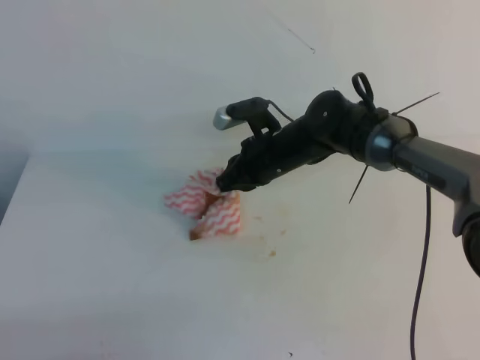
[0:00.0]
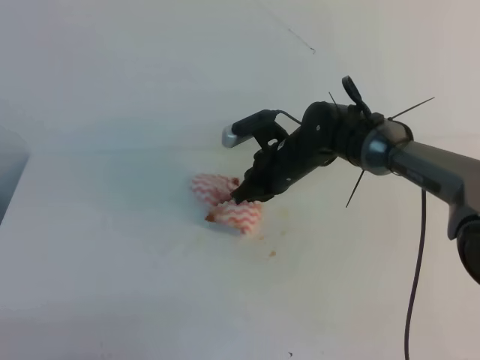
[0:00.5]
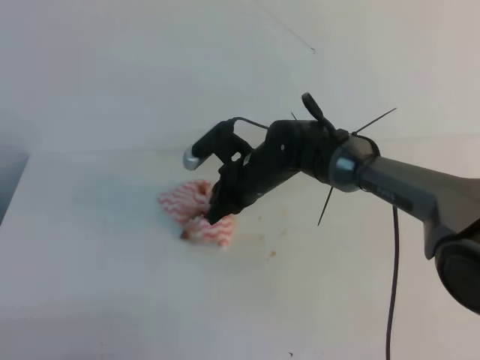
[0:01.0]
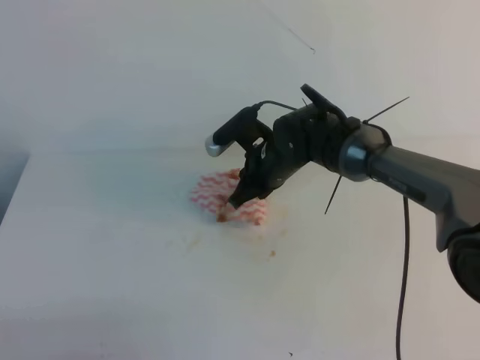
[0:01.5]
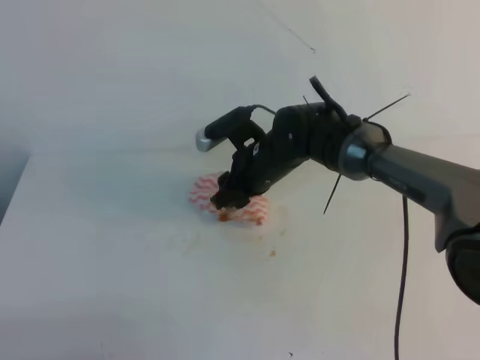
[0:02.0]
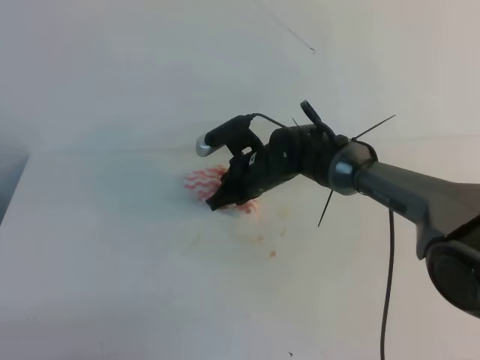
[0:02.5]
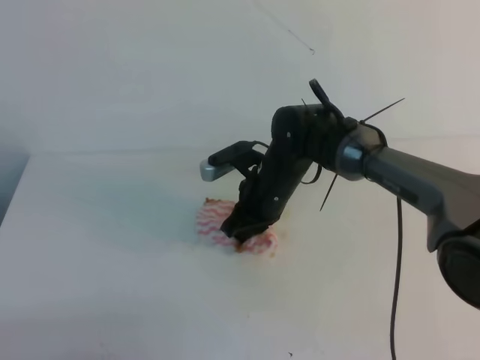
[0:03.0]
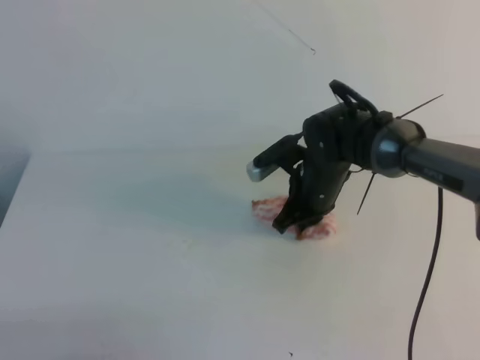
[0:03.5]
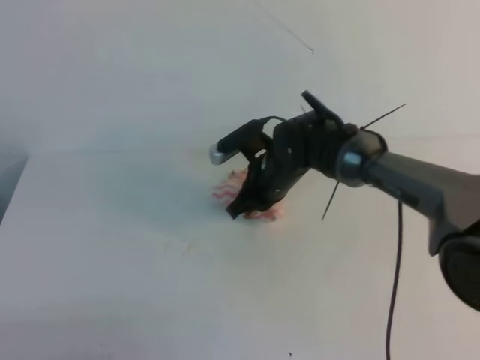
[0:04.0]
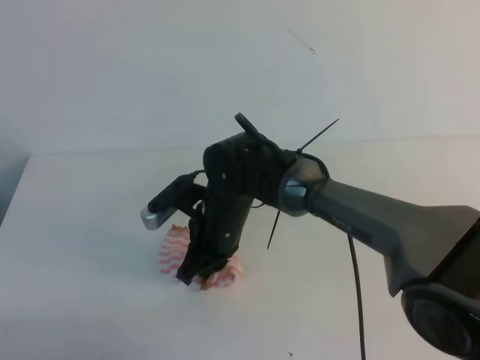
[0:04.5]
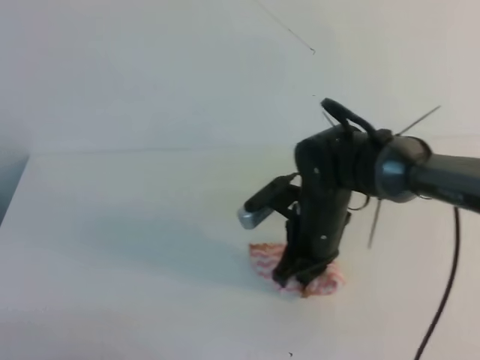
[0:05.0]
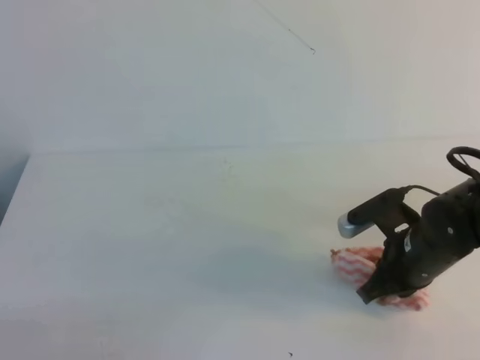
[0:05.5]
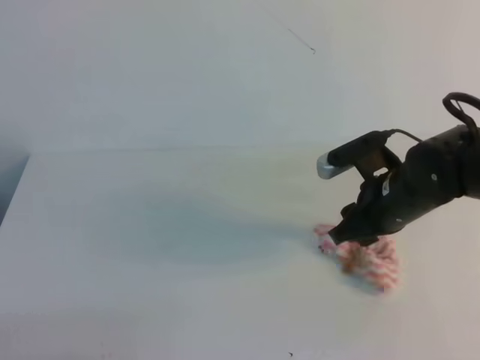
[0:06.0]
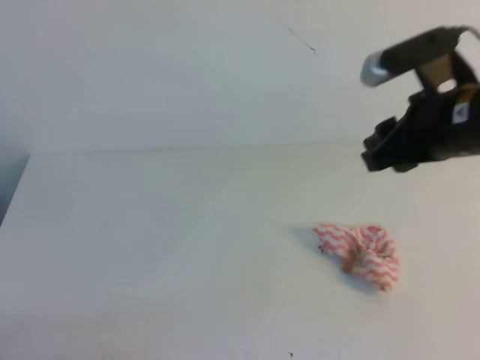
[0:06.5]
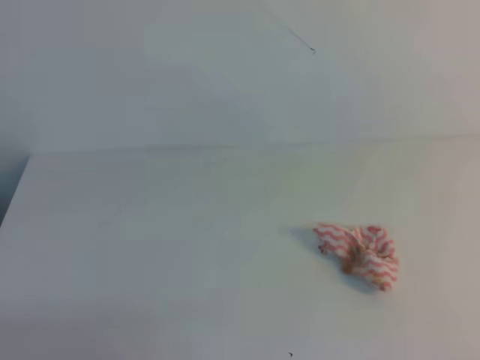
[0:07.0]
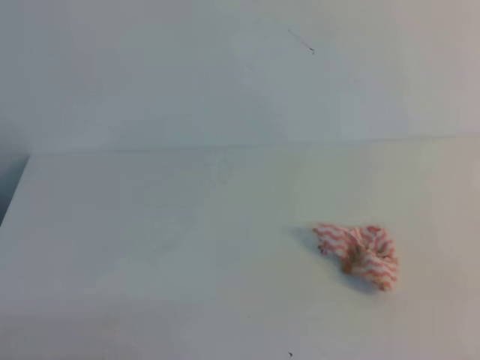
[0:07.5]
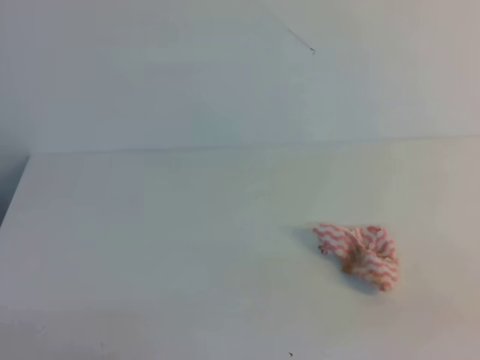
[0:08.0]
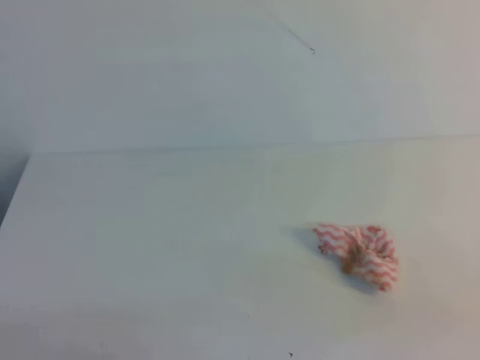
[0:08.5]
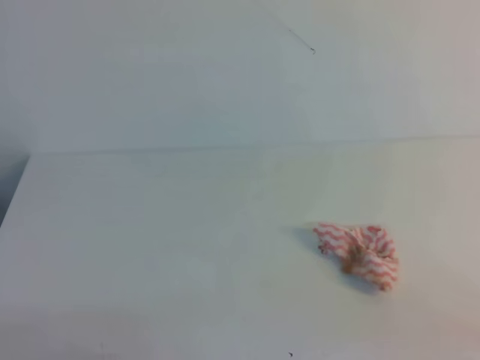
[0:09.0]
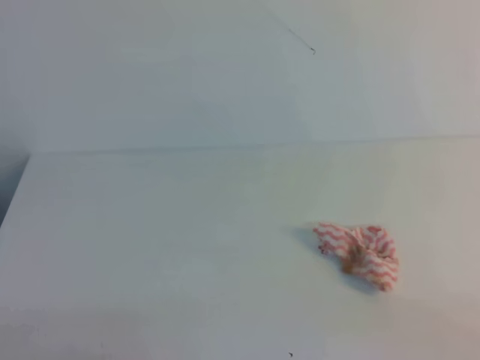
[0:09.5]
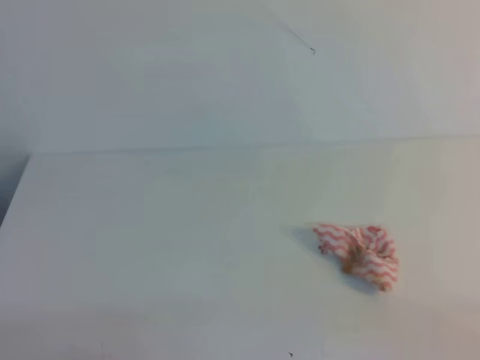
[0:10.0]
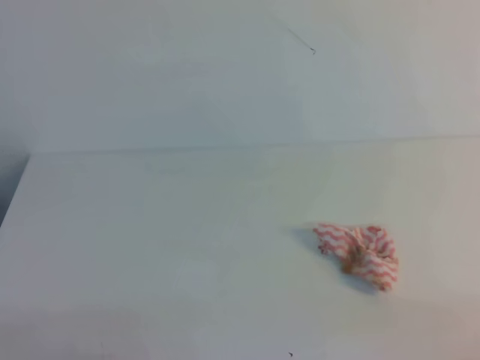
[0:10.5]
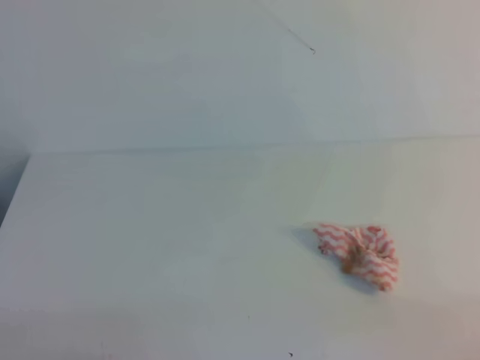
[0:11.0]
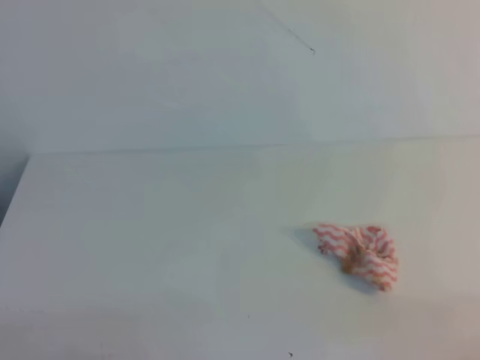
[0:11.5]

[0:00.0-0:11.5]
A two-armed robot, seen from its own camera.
0:00.0 to 0:02.0: The right gripper opens.
0:02.0 to 0:04.0: The right gripper closes.
0:04.0 to 0:06.0: The right gripper moves to the right, backward and upward, approximately 15 cm, and opens.
0:06.0 to 0:07.5: The right gripper is displaced backward, to the right and upward by about 35 cm, and closes its fingers.
